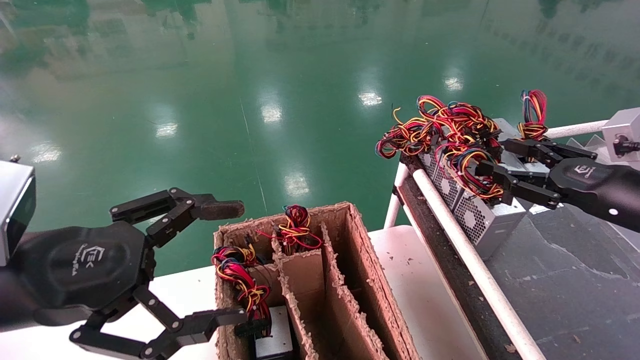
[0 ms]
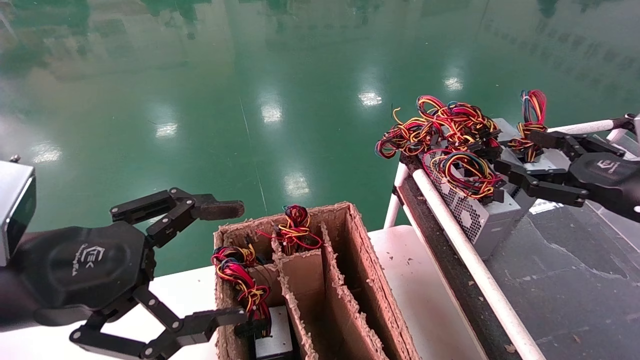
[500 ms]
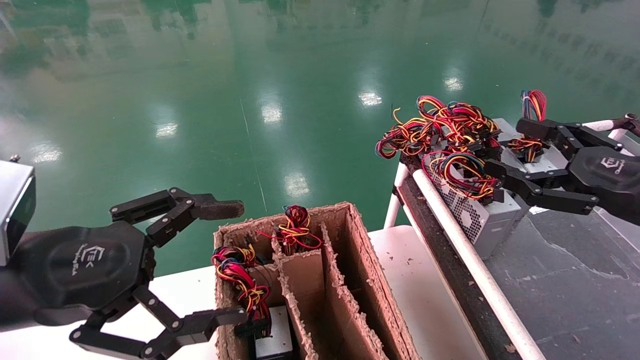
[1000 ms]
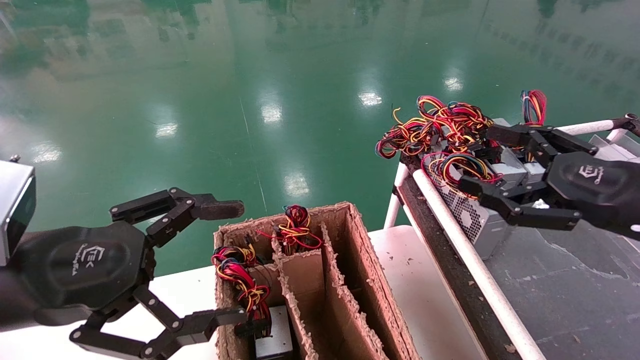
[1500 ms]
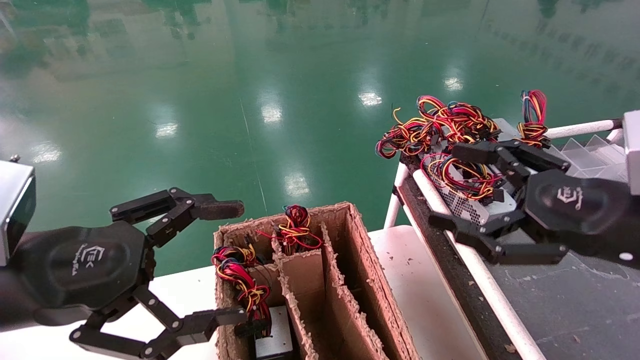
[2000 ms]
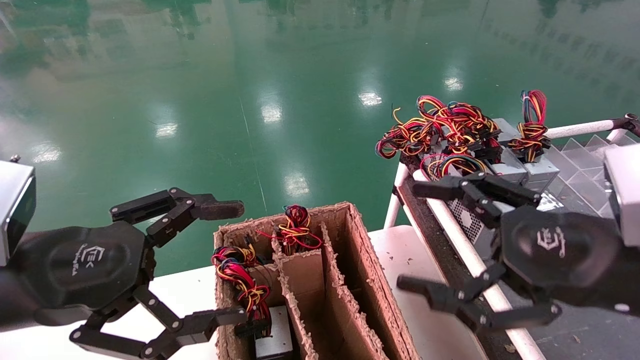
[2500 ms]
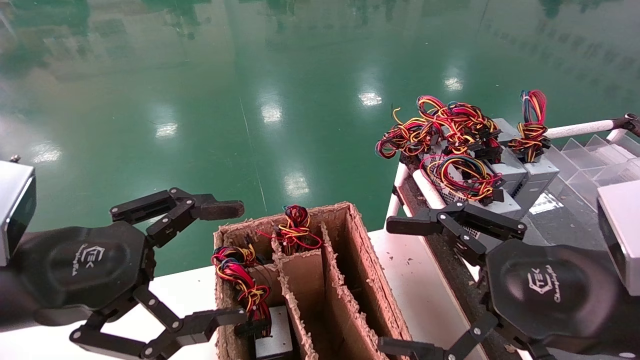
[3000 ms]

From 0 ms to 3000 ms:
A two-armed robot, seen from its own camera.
From 0 ms to 1500 ms: The right gripper travels backward and to the left by about 10 cm, and opens.
From 1500 ms to 3000 ms: The right gripper goes roughly 10 cm to the left and backward.

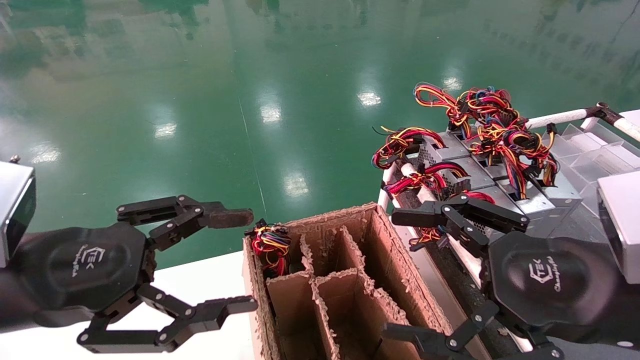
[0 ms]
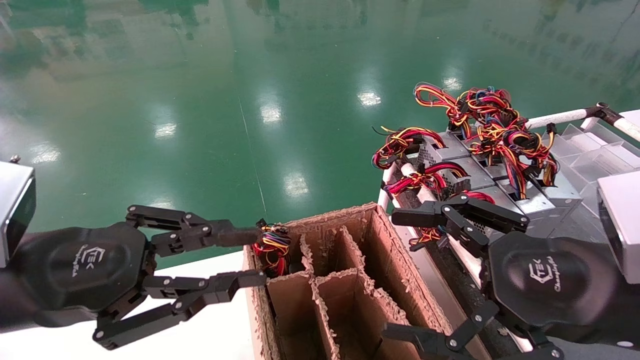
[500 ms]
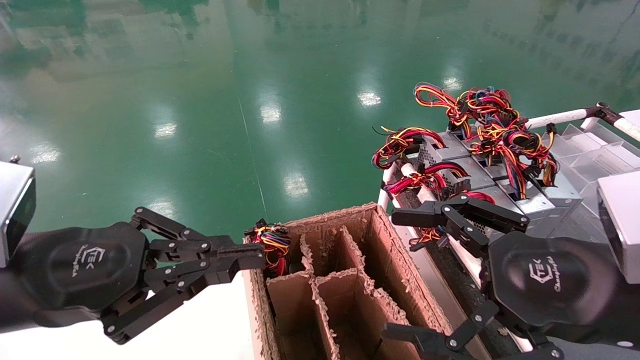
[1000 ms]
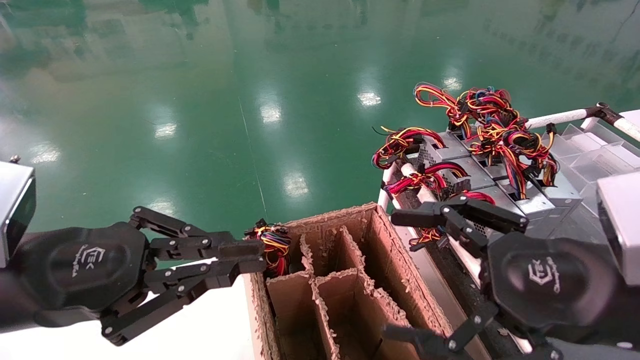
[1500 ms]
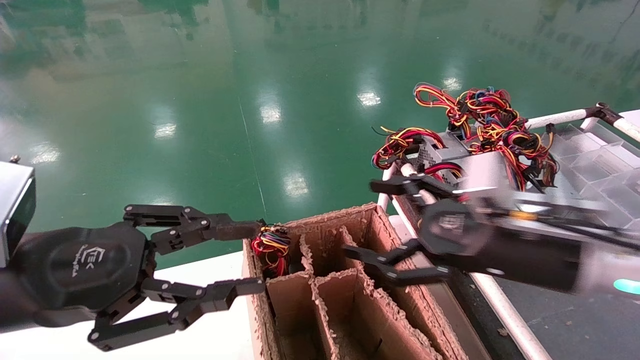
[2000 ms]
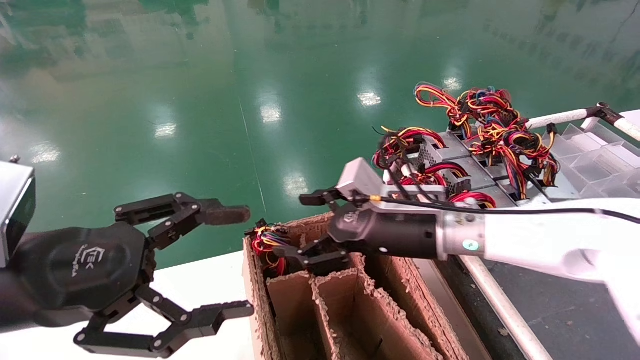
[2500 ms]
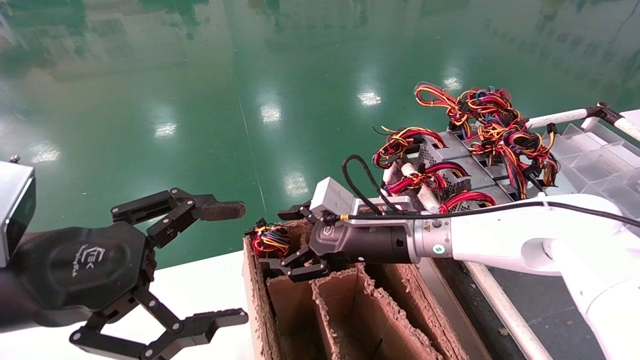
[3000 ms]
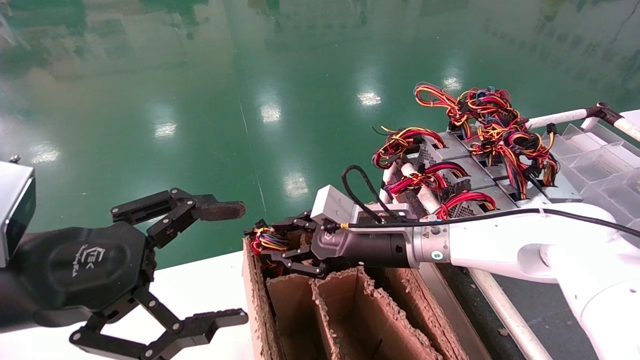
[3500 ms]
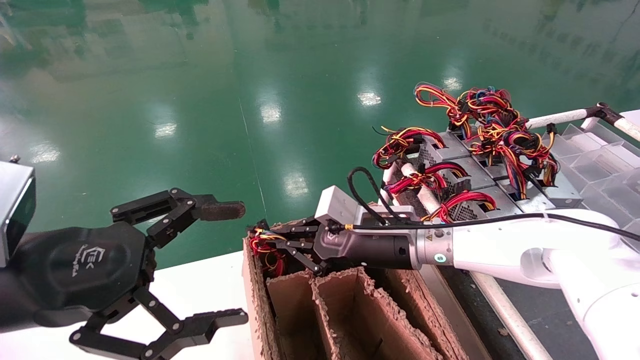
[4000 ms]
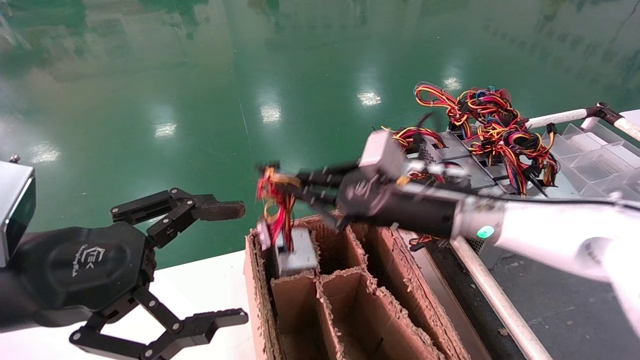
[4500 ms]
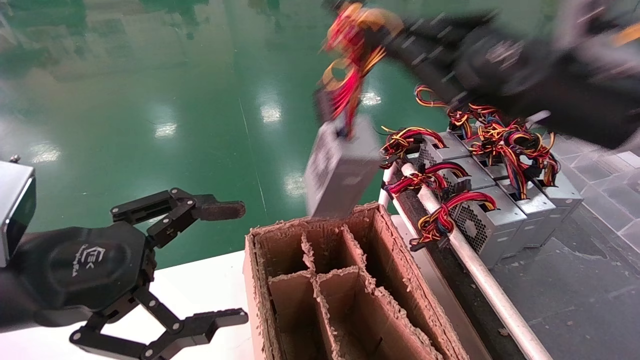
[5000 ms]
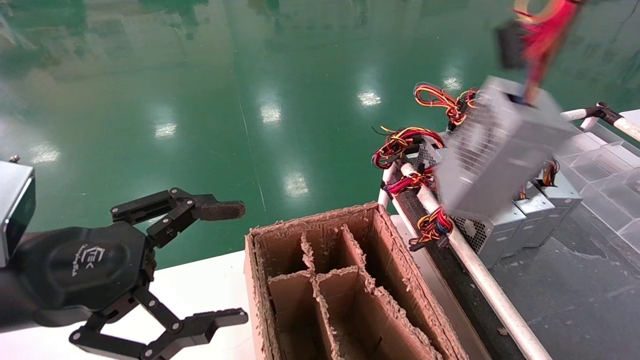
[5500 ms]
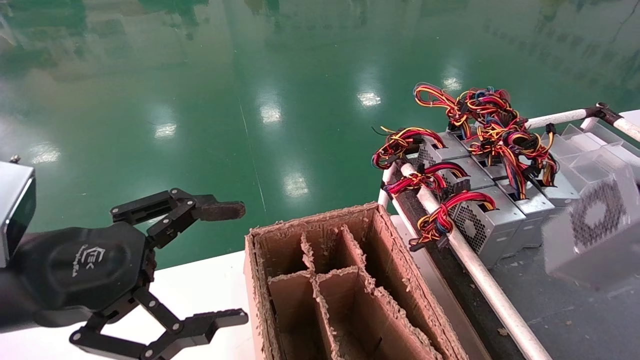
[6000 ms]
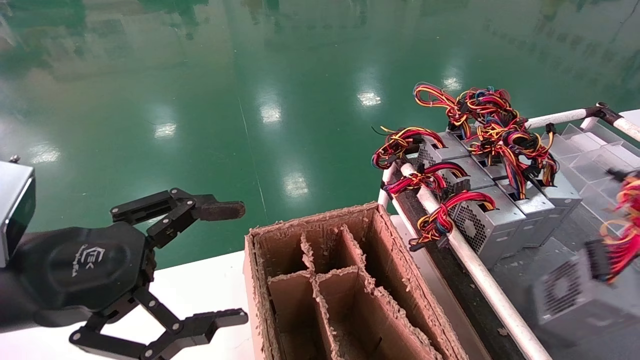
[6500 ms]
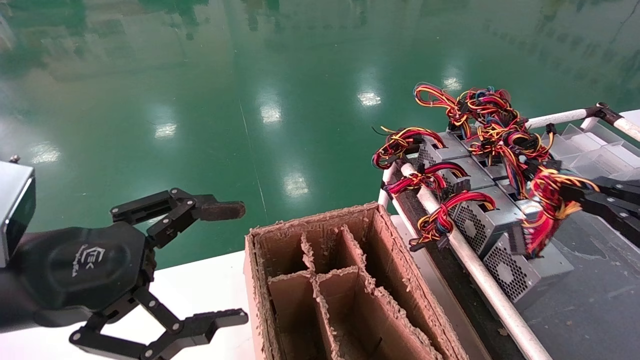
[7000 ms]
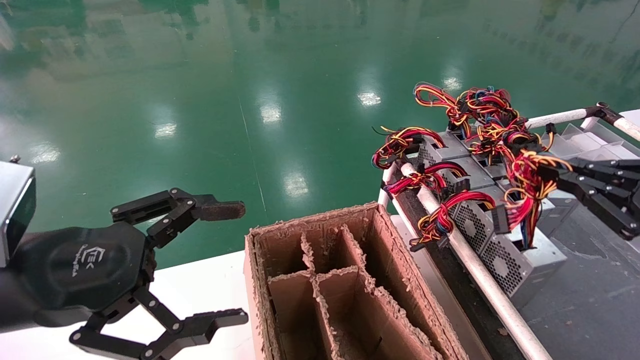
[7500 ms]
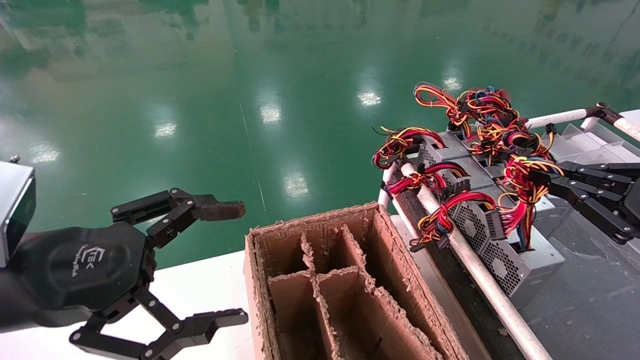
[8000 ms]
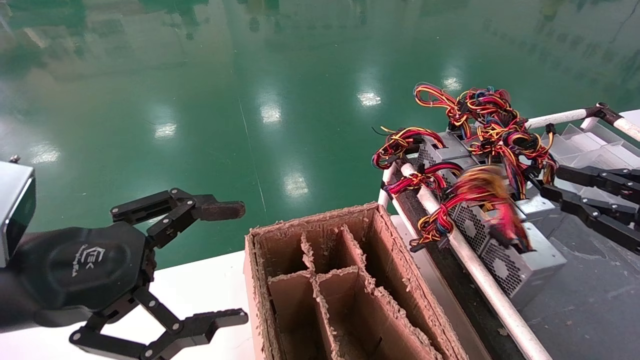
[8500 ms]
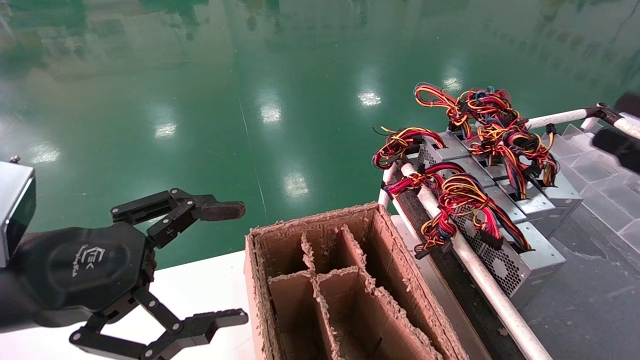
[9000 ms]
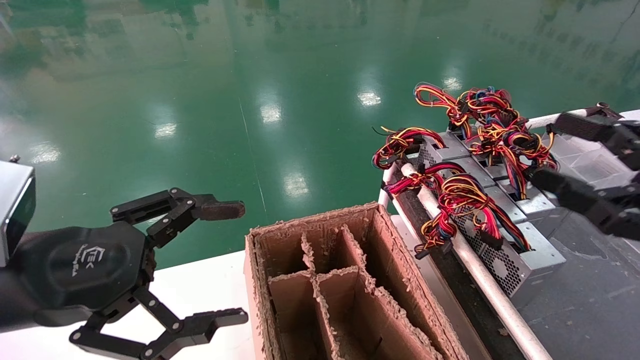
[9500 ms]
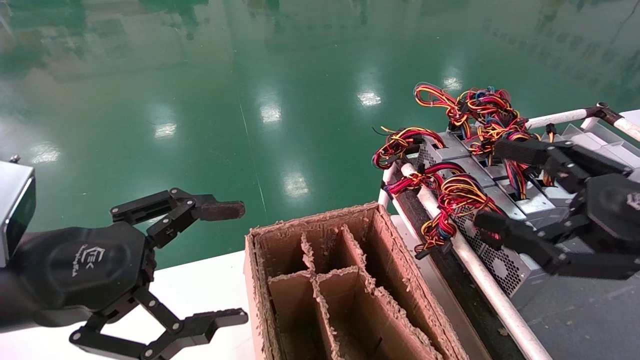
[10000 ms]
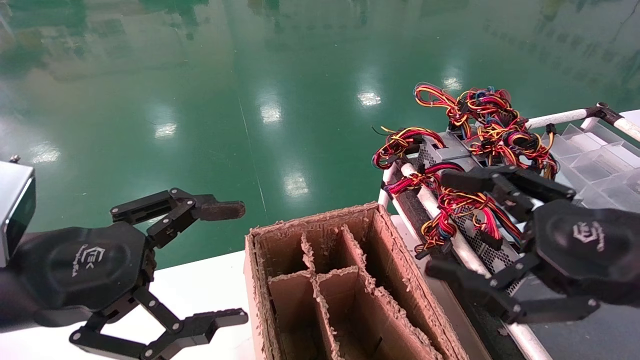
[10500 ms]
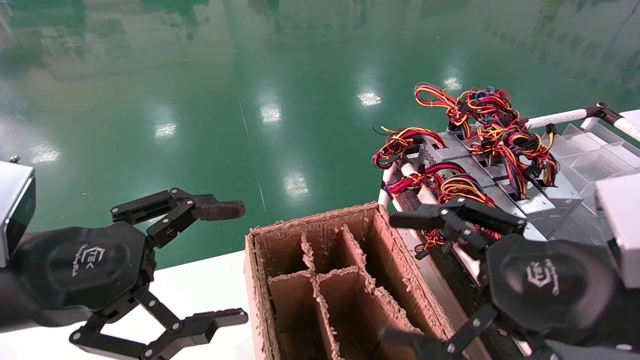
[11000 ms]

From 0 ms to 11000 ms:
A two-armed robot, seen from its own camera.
Step, from 1500 ms to 3500 ms: Grab and lift the power supply from the large box.
Step, from 4000 ms to 8000 ms: Place the power supply on the operating table.
From 0 ms to 2000 ms: The left gripper closes up. Meanwhile the right gripper travels forward by about 10 cm.
From 2000 ms to 3500 ms: The left gripper opens its fingers, while the right gripper moves to the left, forward and downward, some 15 cm, and closes its fingers.
From 3500 ms to 5500 ms: The right gripper is displaced to the right, backward and upward by some 40 cm, and closes its fingers.
From 5500 ms to 7500 ms: The right gripper travels downward and forward by approximately 15 cm.
From 7500 ms to 9000 ms: The right gripper opens up.
From 9000 ms to 11000 ms: The right gripper travels to the left by about 15 cm, and opens its fingers.

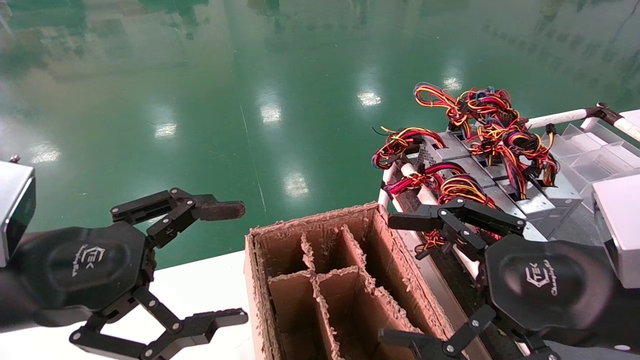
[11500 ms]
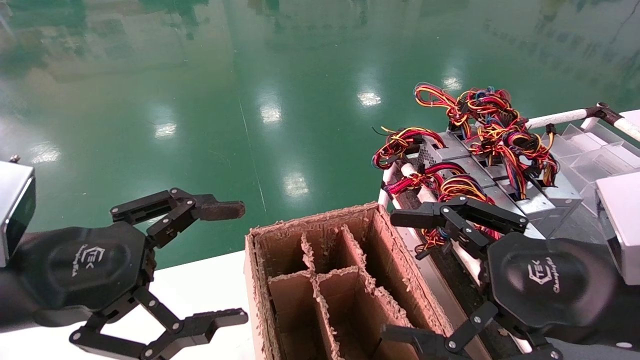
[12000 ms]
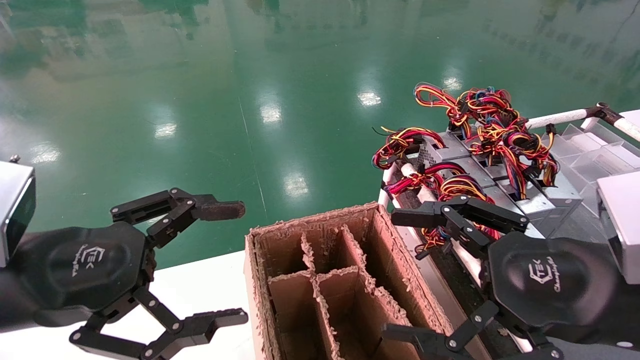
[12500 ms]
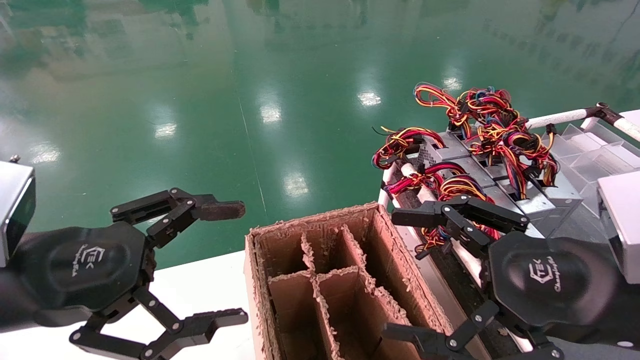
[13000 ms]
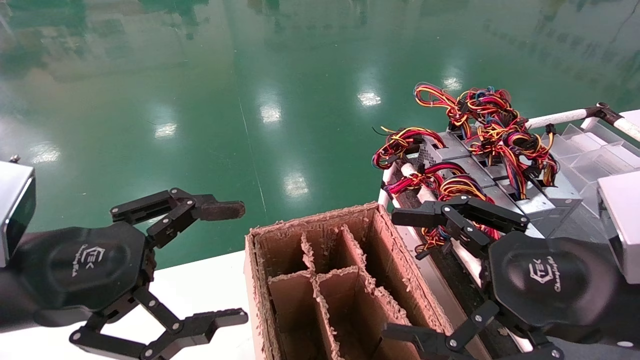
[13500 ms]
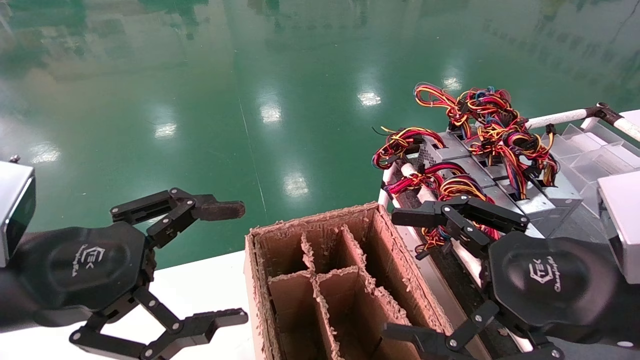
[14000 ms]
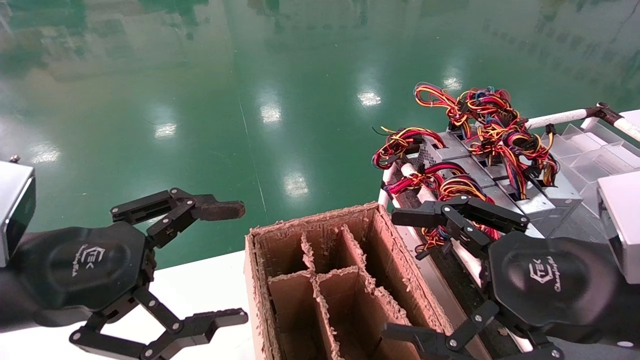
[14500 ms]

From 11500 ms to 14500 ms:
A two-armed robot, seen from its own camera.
From 11500 ms to 14500 ms: The two grippers keep their place.
